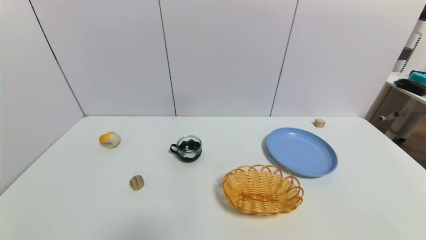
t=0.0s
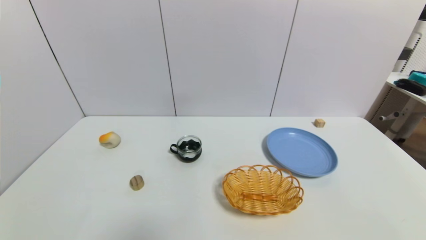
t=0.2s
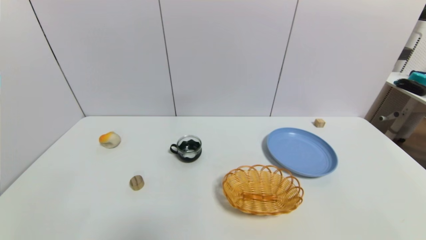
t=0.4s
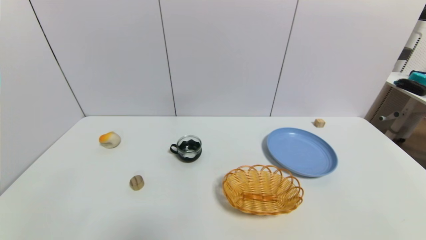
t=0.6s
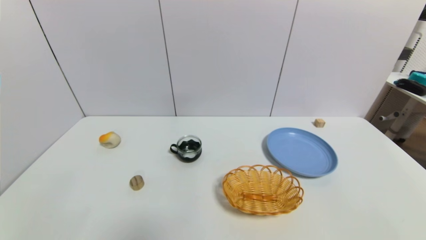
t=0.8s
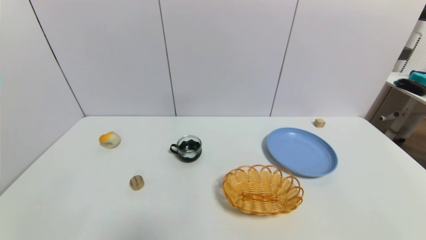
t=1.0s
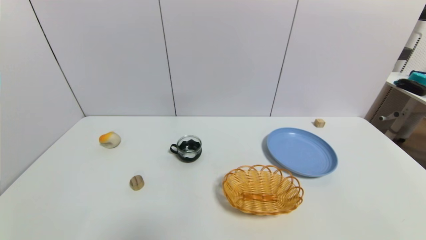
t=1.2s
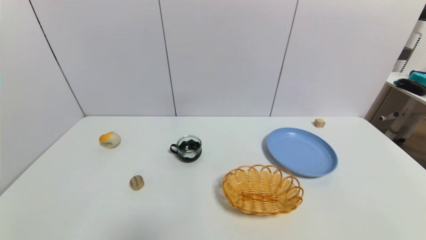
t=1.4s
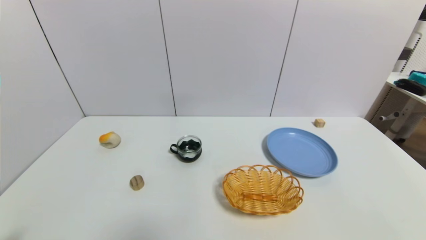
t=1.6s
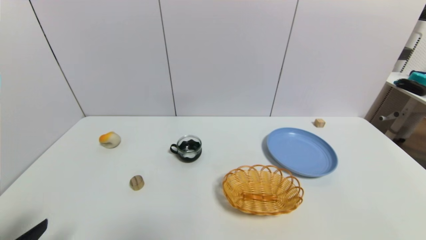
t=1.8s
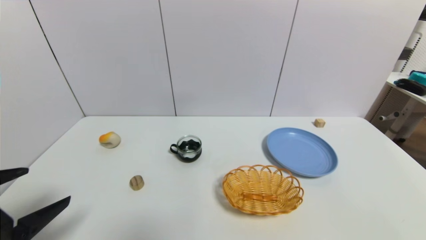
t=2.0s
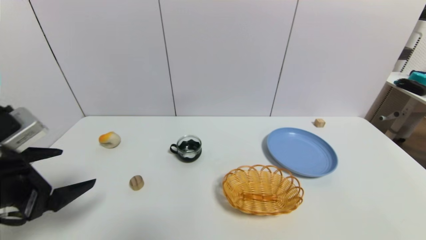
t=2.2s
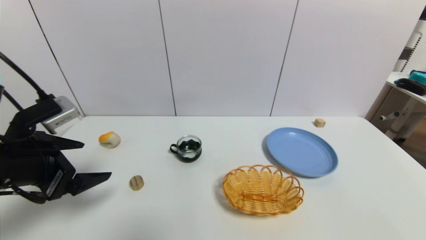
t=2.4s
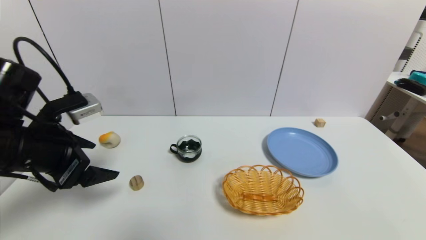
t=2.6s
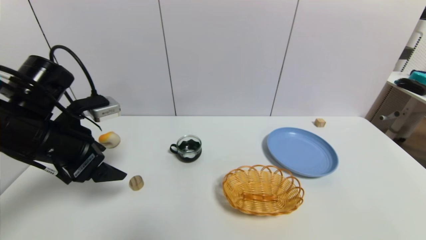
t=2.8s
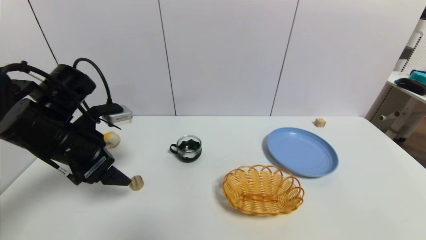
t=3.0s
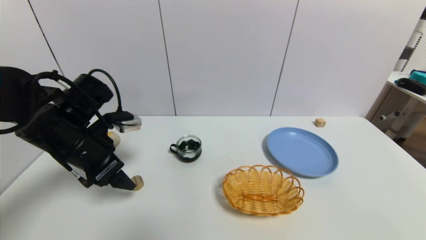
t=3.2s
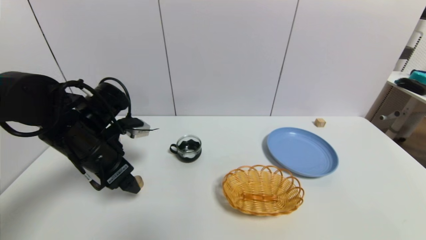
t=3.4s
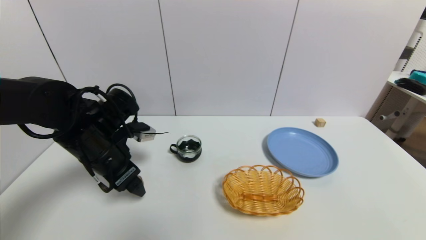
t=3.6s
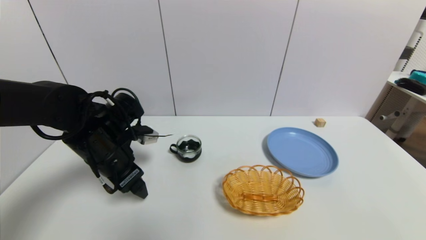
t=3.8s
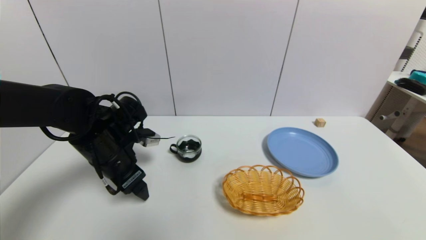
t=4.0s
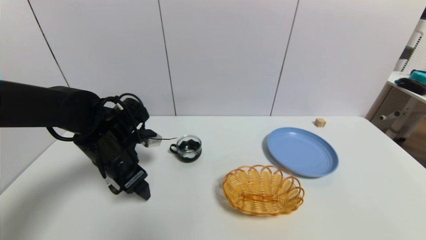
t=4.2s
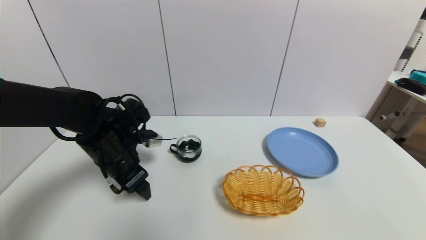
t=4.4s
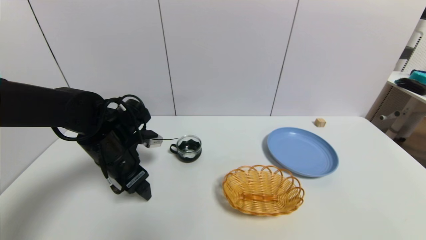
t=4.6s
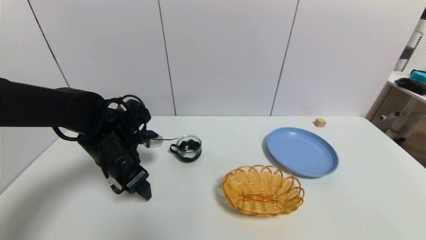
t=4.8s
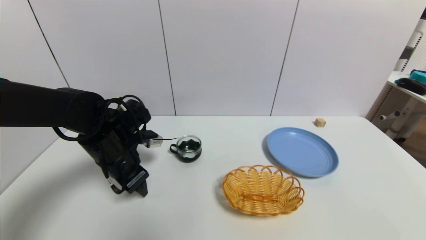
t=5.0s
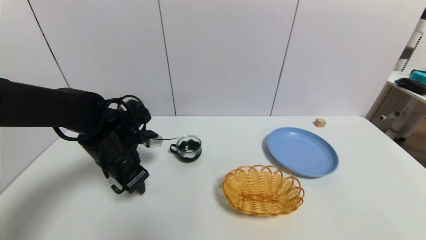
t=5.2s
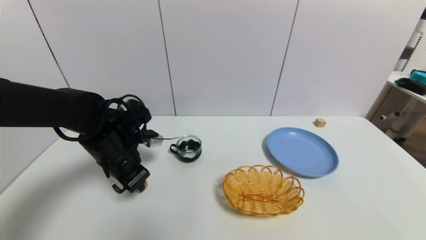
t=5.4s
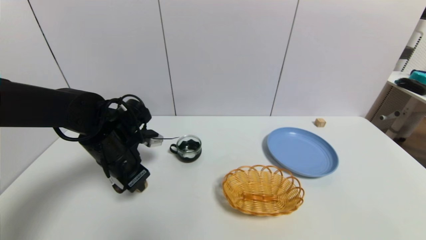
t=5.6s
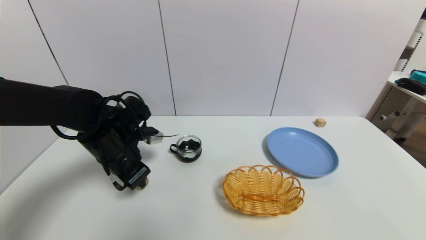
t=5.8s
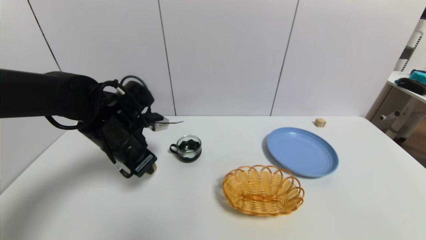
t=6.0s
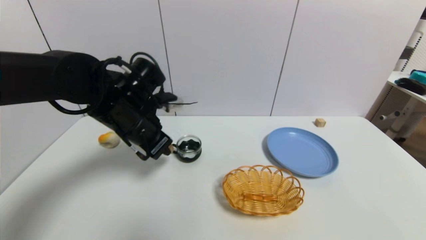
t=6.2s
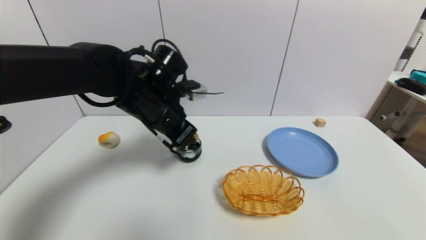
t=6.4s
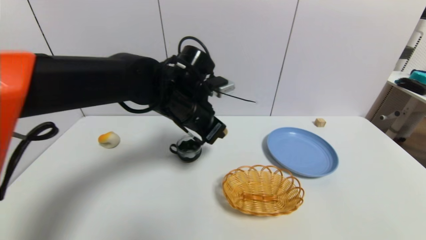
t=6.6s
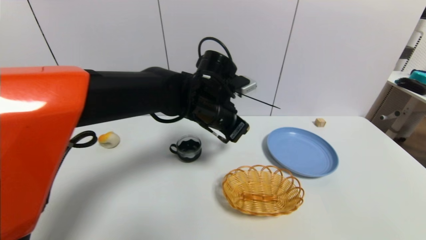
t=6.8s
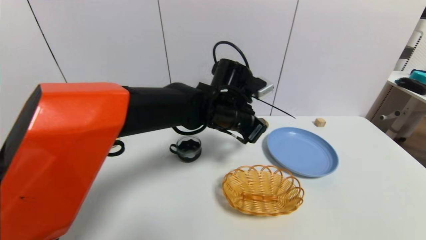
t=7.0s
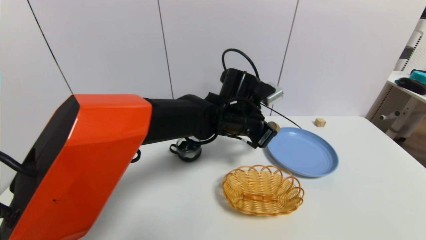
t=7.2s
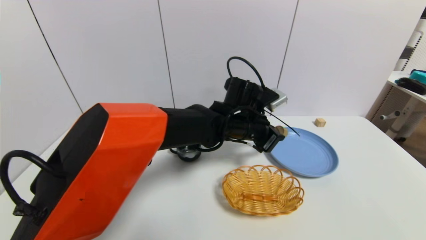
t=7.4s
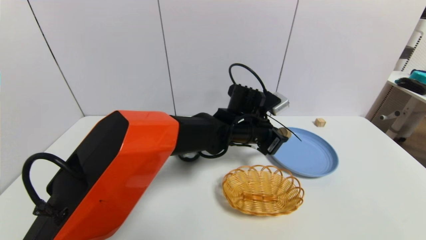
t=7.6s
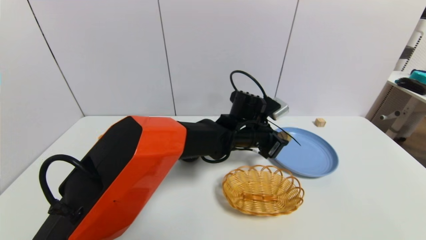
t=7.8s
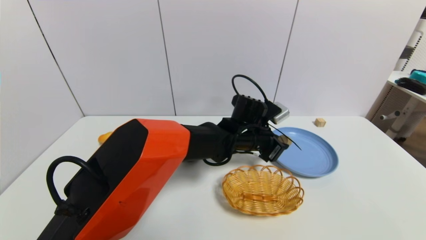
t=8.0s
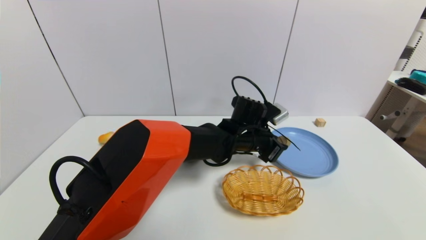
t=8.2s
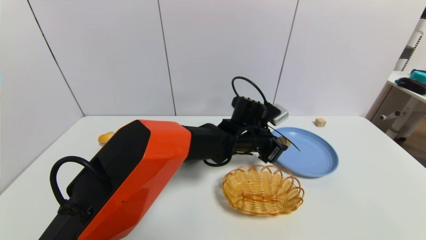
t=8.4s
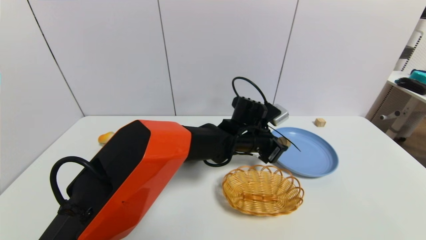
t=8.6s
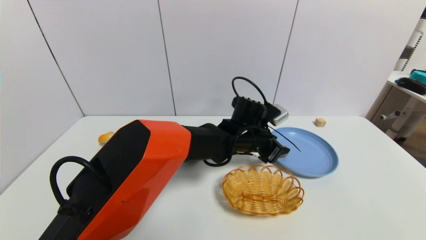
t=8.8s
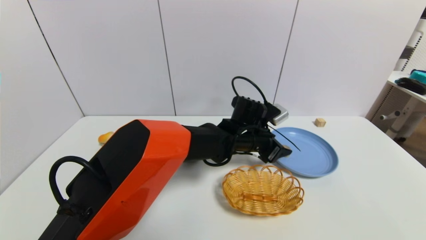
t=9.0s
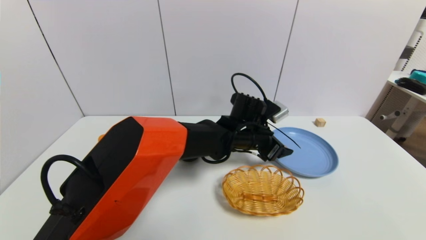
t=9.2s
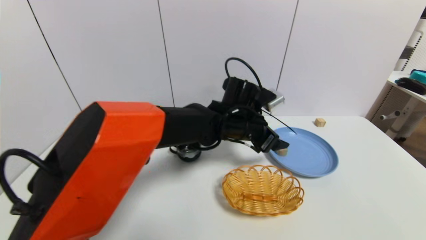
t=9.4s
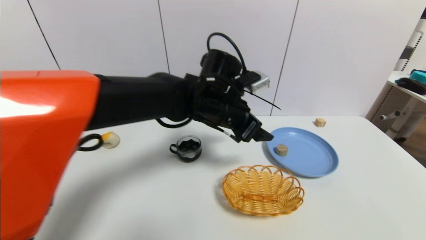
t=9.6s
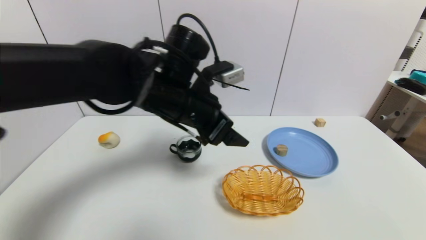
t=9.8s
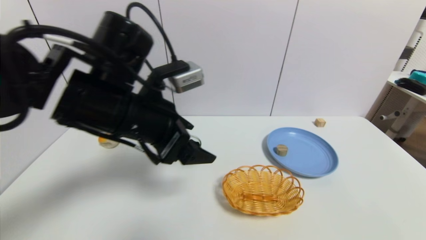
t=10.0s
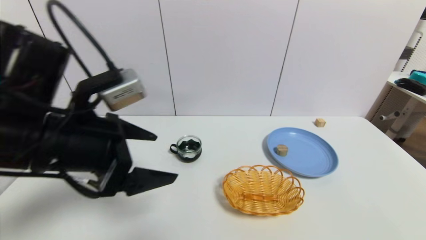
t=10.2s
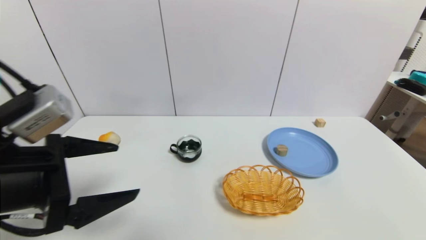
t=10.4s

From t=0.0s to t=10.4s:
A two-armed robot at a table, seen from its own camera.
Task of the whole recording: use a gripper to pick the target object and place on the blue plate.
Step, from t=0.0s to t=5.2s: Grasp the round wooden block with the left gripper.
Step, from t=5.4s to t=9.8s: Place the round wooden block on the blue plate with the left gripper.
From t=1.4s to t=3.0s: The left gripper shifts roughly 30 cm forward and upward.
From t=3.0s to t=4.4s: The left gripper travels downward by approximately 5 cm.
From t=4.4s to t=6.0s: The left gripper closes up.
From t=6.0s to t=7.4s: The left gripper goes roughly 25 cm to the right.
From t=7.4s to t=9.0s: The left gripper changes place by some 5 cm, and opens up.
From t=9.0s to t=10.4s: The left gripper shifts approximately 40 cm to the left and backward, and opens up.

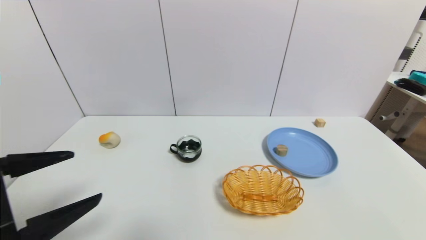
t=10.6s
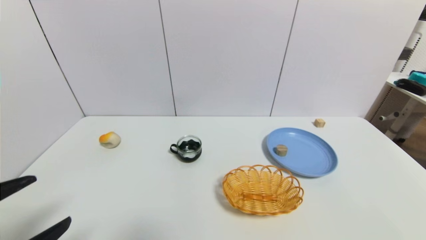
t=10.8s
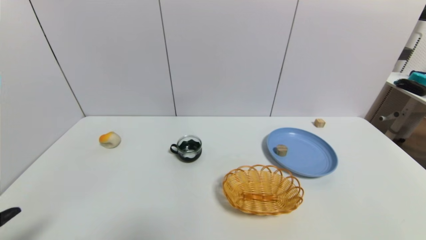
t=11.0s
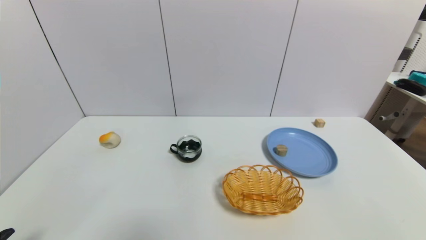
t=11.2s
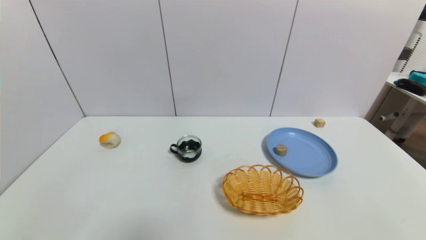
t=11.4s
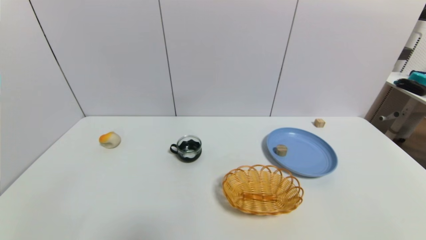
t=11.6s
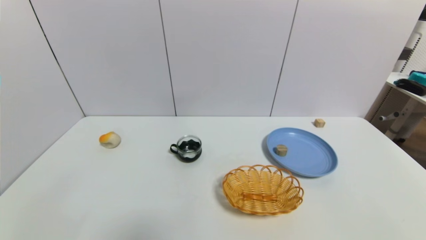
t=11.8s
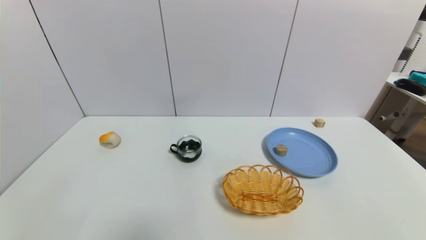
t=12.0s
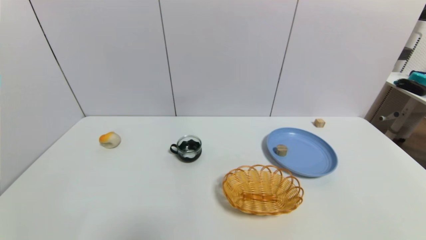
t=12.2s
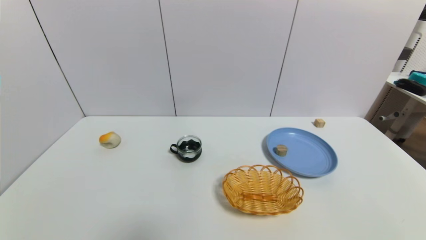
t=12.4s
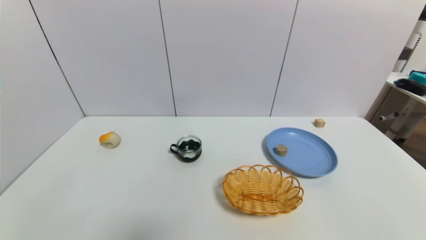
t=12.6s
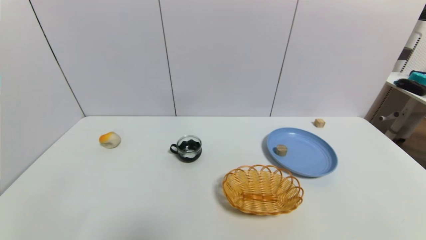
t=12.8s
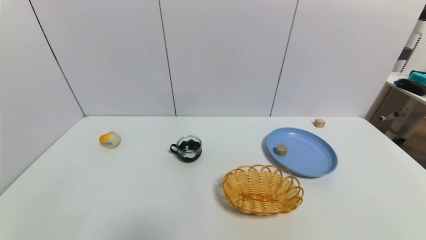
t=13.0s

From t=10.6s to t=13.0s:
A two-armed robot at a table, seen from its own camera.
Task of the whole recording: use a gripper to pick the target object and place on the blue plate.
From t=10.6s to t=11.8s: The left gripper heads downward and backward, covering roughly 20 cm.
From t=11.8s to t=13.0s: Neither gripper changes place.

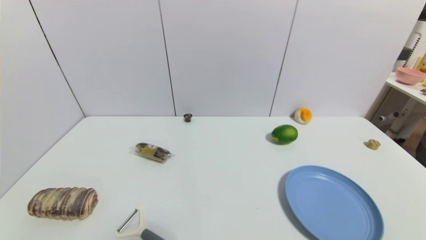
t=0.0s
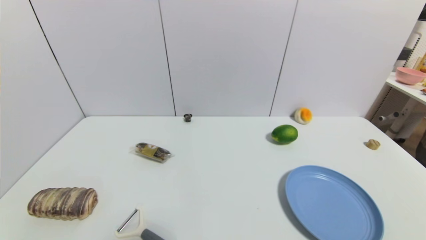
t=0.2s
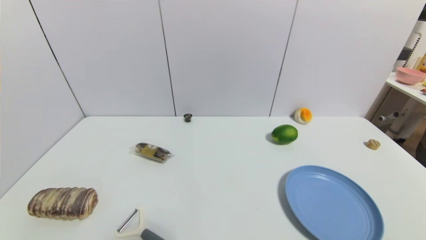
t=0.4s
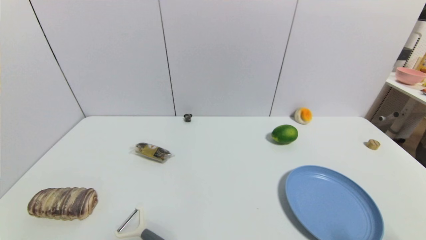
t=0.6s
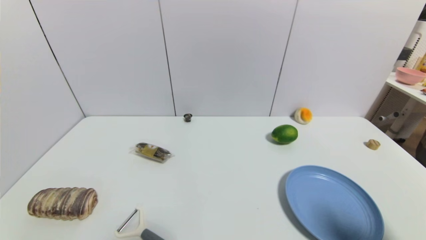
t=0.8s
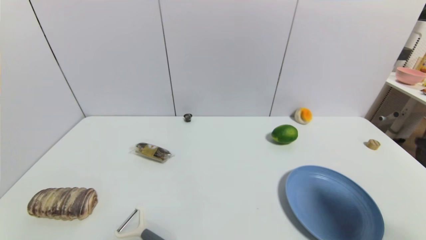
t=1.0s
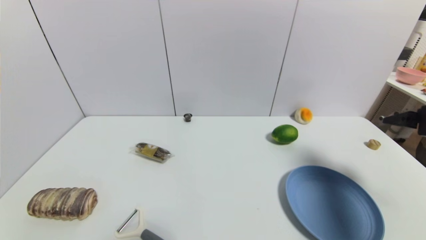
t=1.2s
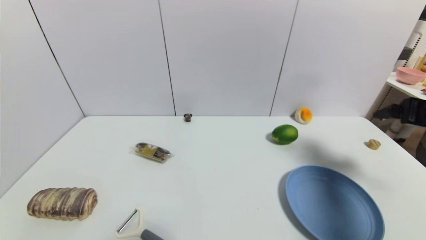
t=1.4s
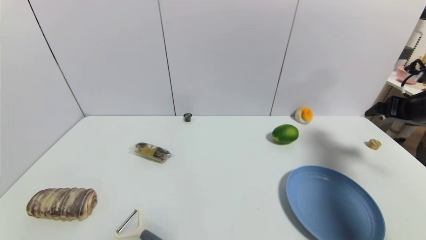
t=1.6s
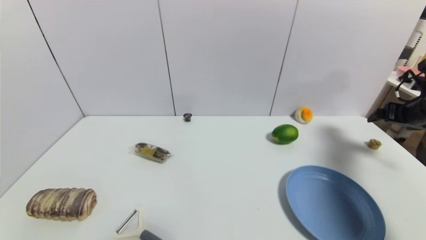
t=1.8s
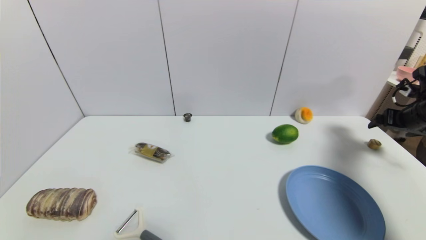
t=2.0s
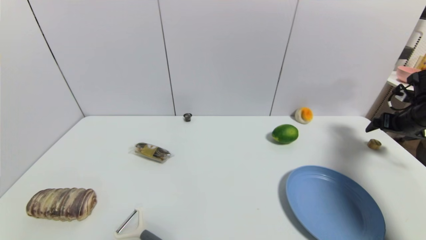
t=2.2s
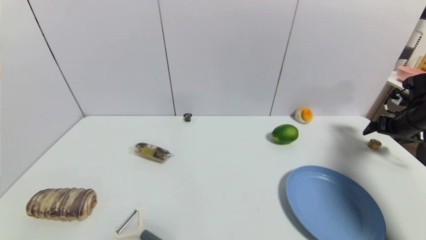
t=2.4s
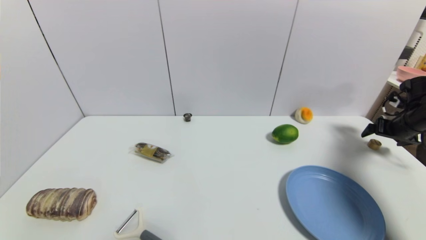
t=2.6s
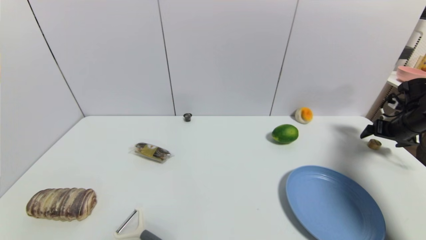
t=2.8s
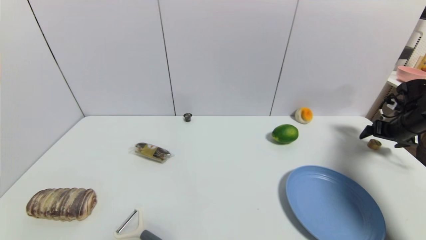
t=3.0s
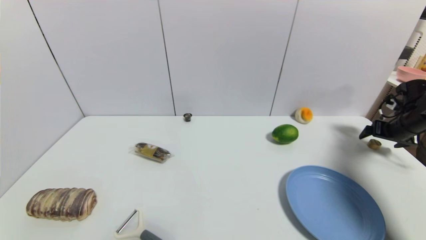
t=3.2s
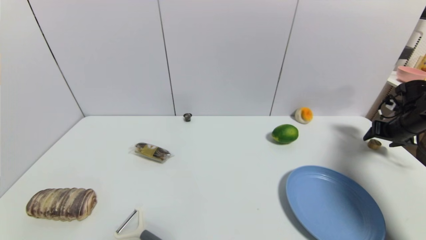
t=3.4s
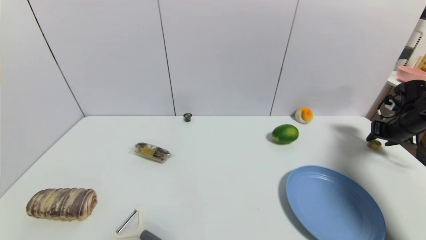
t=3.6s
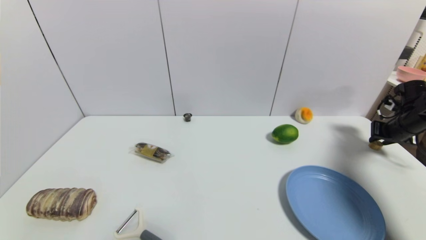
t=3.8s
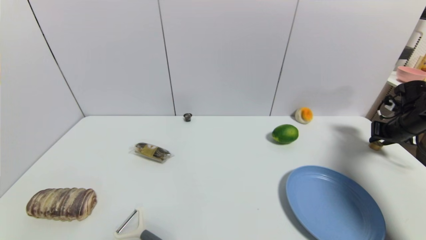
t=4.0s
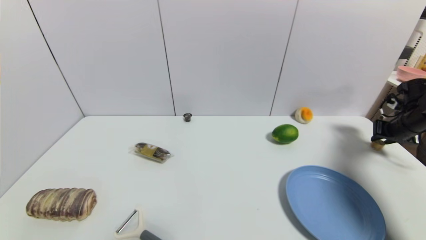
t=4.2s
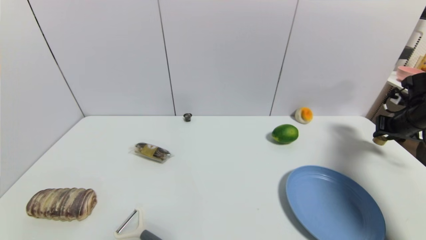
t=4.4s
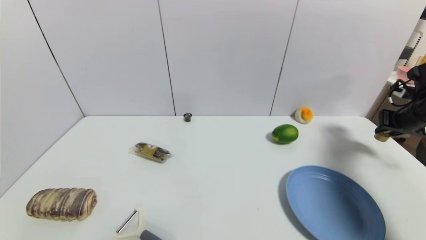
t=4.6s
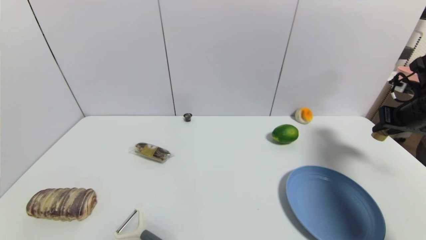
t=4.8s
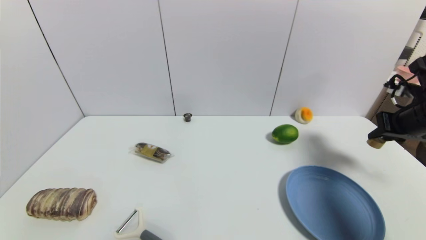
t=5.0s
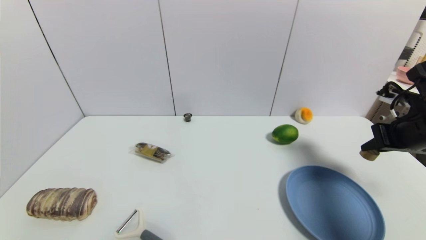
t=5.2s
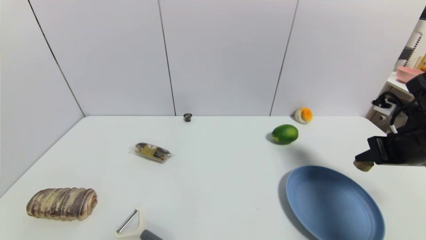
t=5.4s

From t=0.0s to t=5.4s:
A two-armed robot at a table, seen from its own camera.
Task of the whole recording: use a gripper to pick the target object and place on the blue plate.
Step, from t=0.0s to t=3.8s: Grasp the round wooden block with the right gripper.
From t=0.0s to t=1.4s: The right gripper shifts roughly 35 cm forward and upward.
From t=1.4s to t=2.8s: The right gripper is displaced forward, downward and to the right by approximately 20 cm.
From t=2.8s to t=4.0s: The right gripper closes its fingers.
From t=4.0s to t=5.4s: The right gripper shifts some 25 cm to the left, backward and upward.
